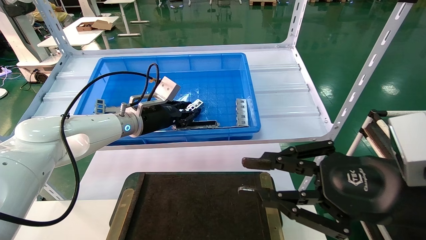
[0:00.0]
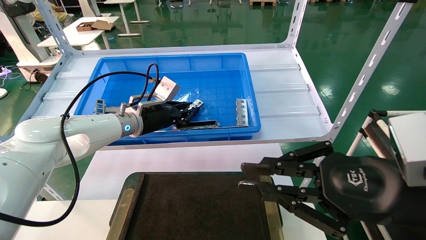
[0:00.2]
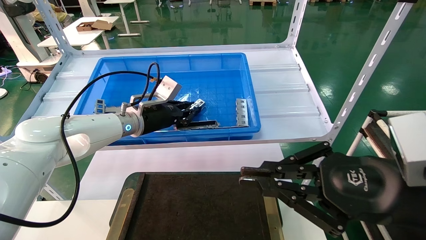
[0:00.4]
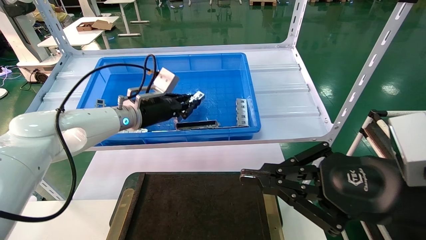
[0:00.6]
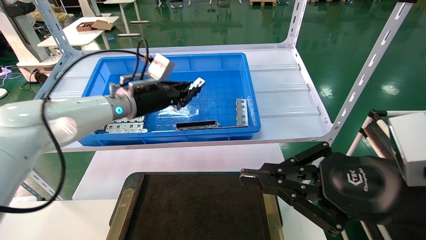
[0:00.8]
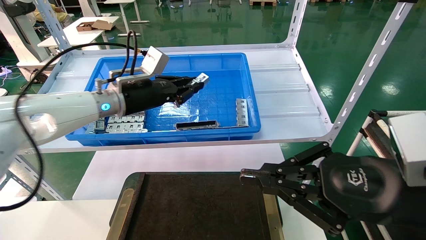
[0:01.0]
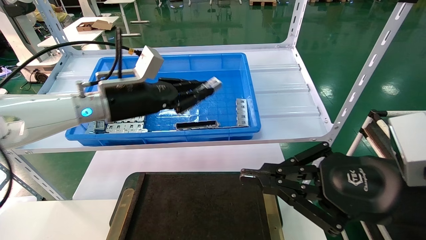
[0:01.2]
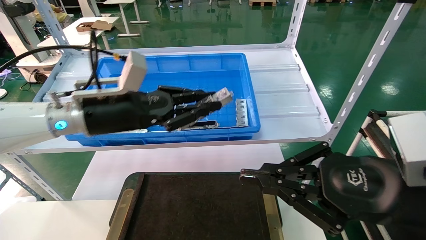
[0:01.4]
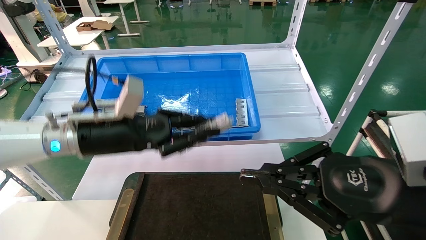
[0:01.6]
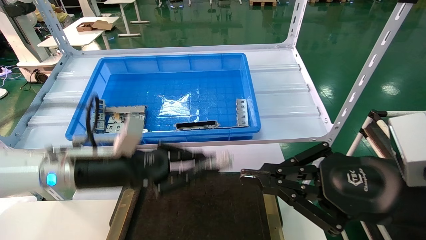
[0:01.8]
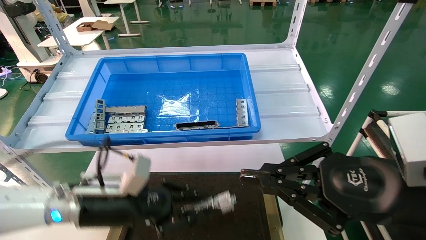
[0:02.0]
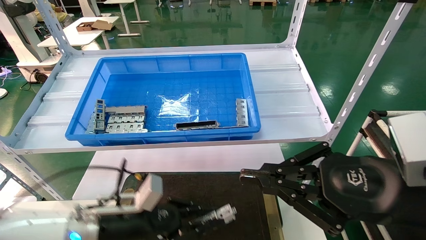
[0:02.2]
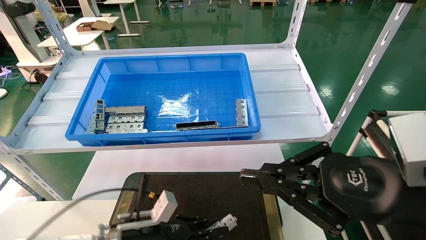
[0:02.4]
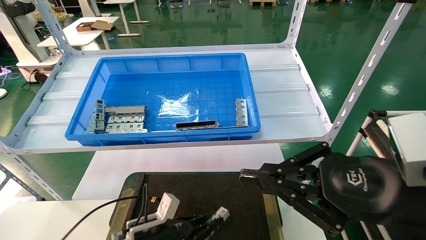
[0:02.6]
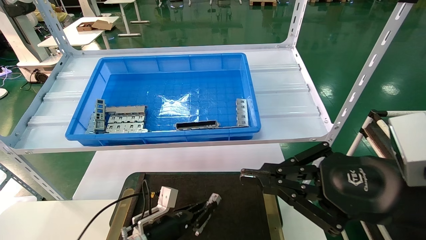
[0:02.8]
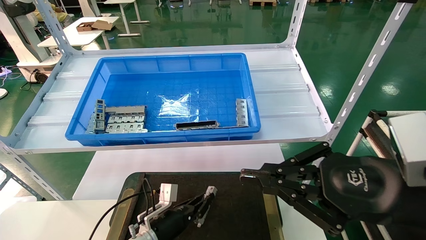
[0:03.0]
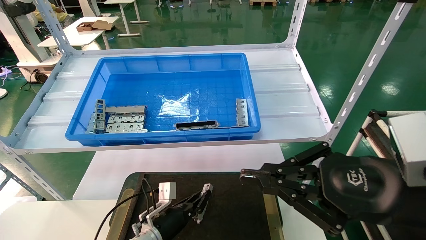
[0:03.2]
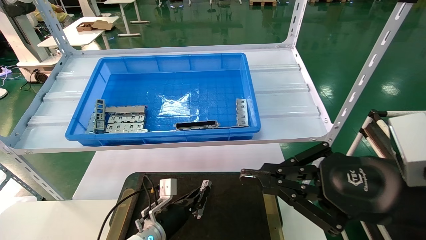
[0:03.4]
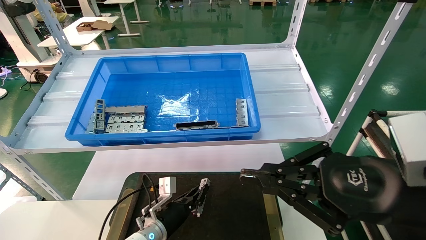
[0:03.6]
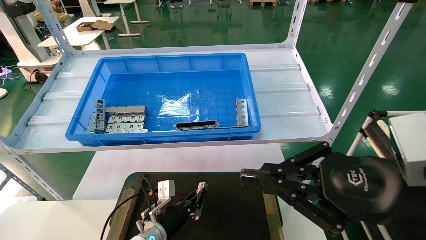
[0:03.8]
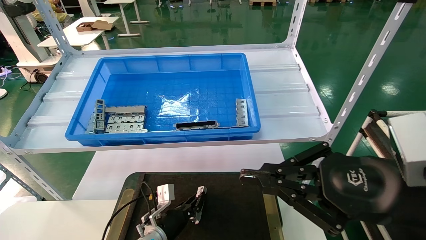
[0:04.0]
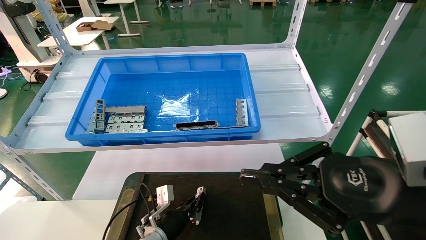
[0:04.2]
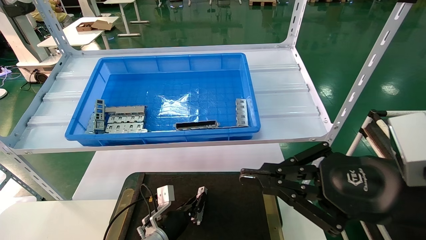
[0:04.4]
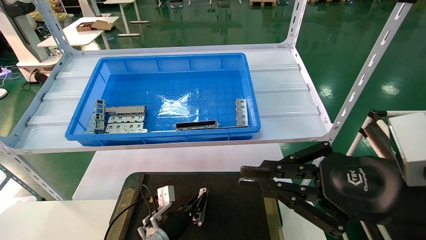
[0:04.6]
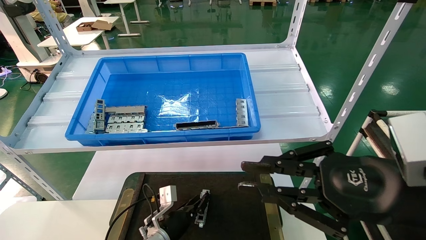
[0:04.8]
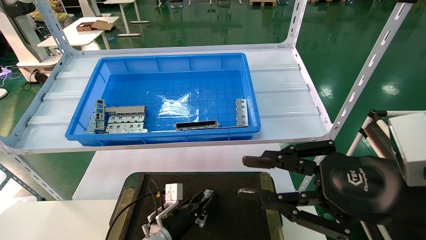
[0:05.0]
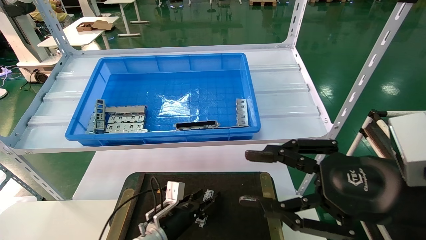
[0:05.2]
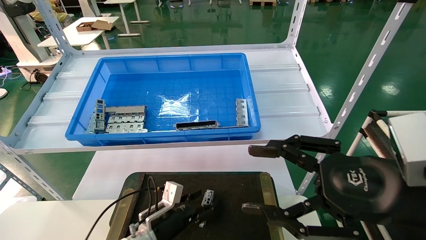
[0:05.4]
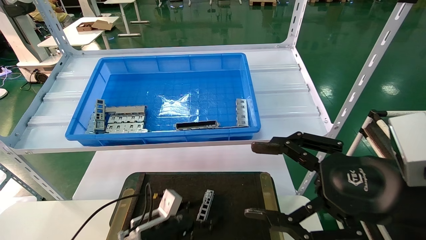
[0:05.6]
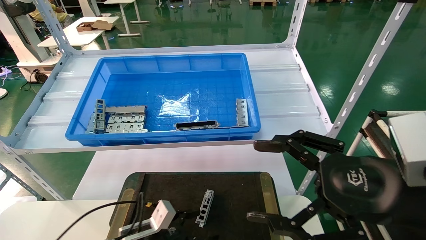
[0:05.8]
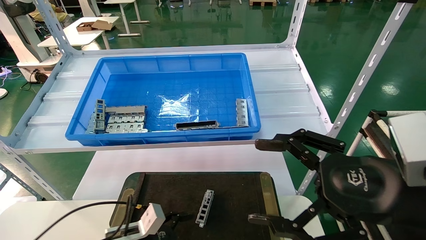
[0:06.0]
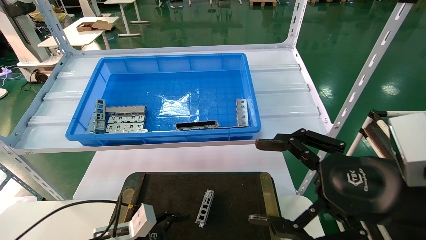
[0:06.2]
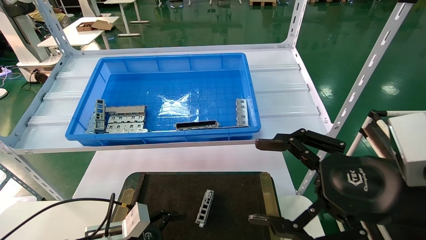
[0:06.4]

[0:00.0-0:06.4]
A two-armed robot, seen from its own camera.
Task of the whole recording: Grasp the part with one hand and place it on the black container.
Step, 0:00.8 to 0:04.8: Place the front USB bracket into the box.
0:00.0 to 0:01.6: The right gripper closes; the left gripper goes approximately 15 cm backward.
0:01.6 to 0:03.2: The left gripper goes about 30 cm downward.
0:03.2 to 0:04.8: The grippers stay close to where they were, moving slightly.
0:04.8 to 0:06.4: The right gripper opens its fingers, while the left gripper heads to the left, backward and upward, covering roughly 15 cm, and opens up.
